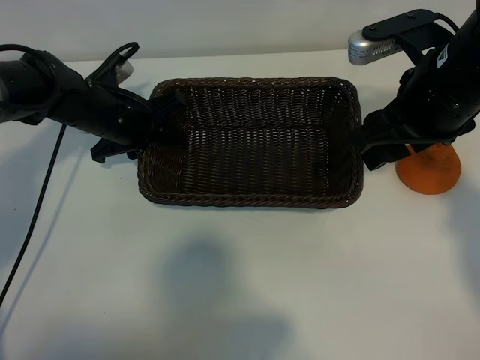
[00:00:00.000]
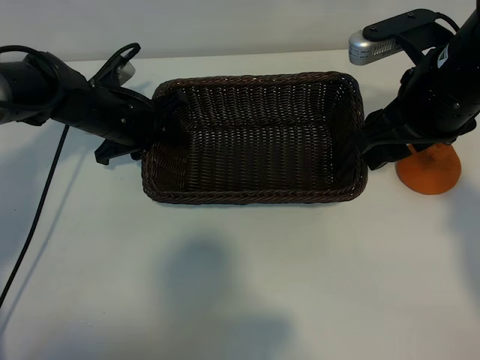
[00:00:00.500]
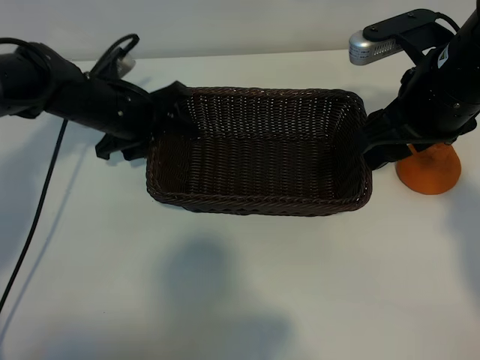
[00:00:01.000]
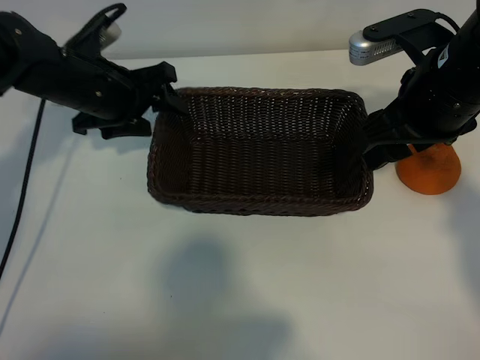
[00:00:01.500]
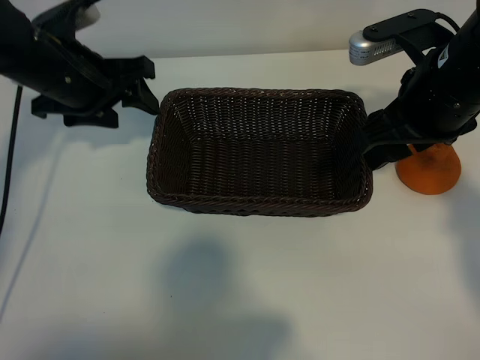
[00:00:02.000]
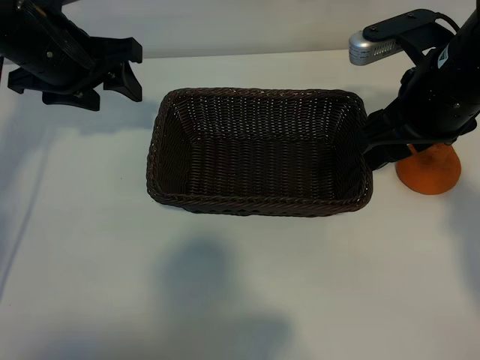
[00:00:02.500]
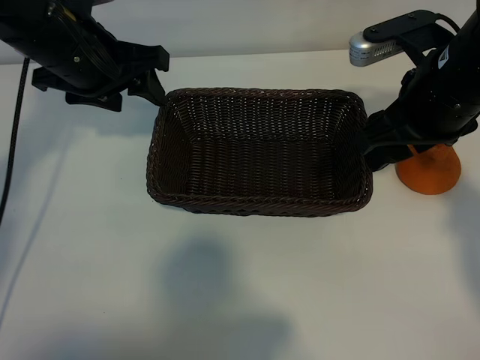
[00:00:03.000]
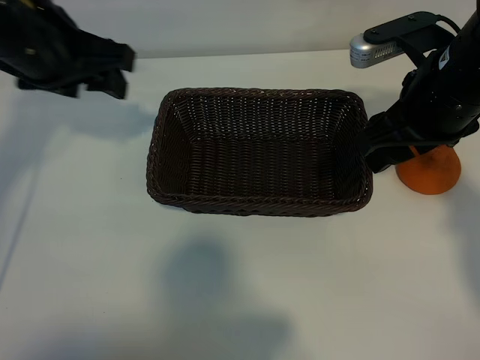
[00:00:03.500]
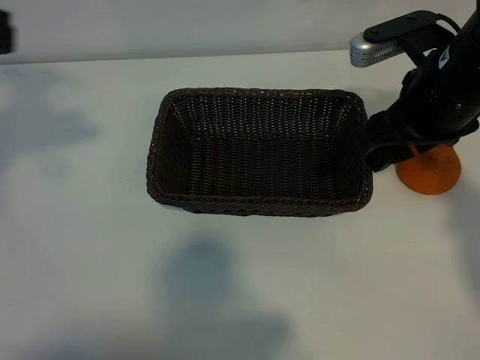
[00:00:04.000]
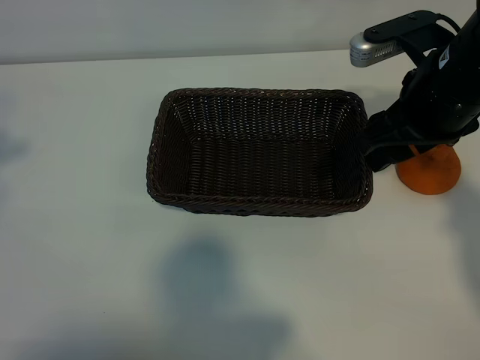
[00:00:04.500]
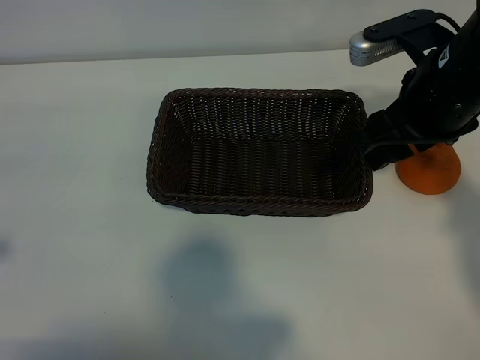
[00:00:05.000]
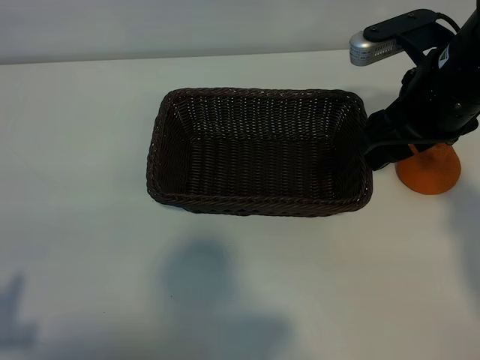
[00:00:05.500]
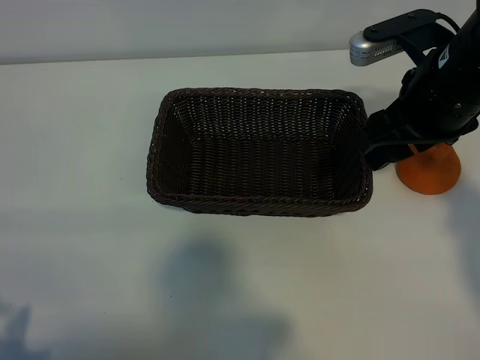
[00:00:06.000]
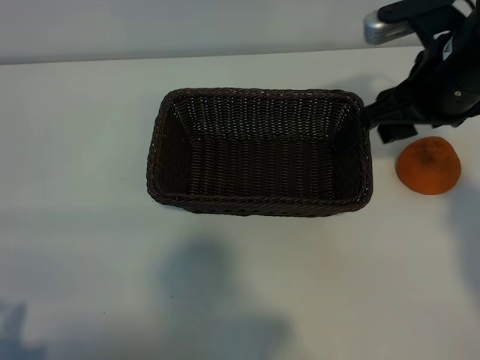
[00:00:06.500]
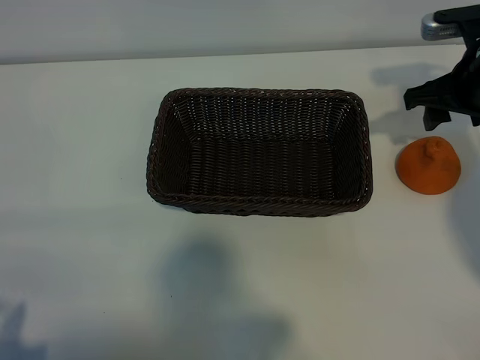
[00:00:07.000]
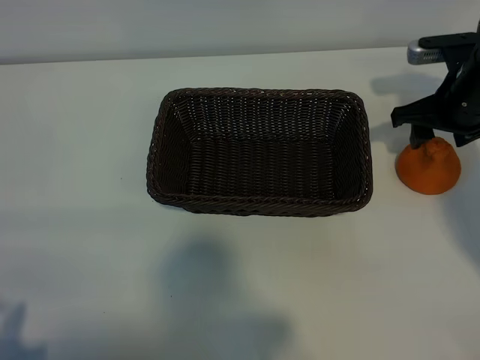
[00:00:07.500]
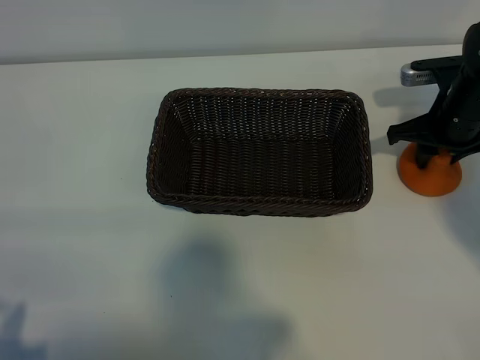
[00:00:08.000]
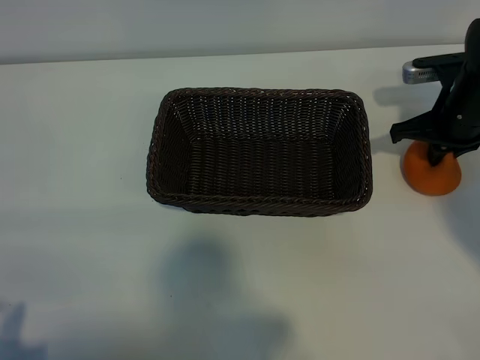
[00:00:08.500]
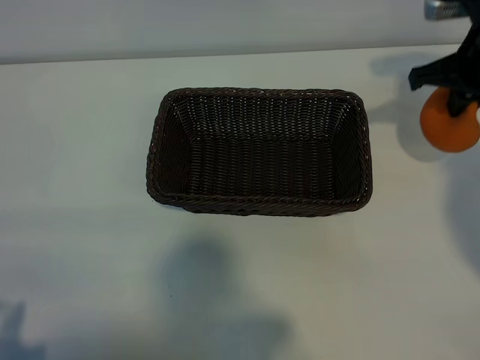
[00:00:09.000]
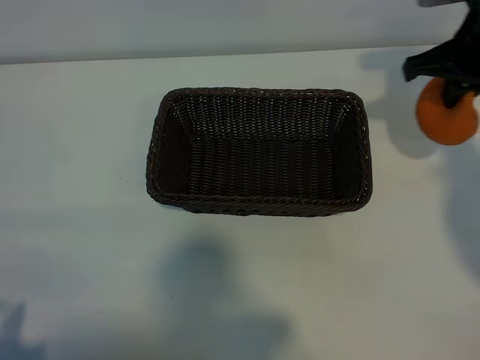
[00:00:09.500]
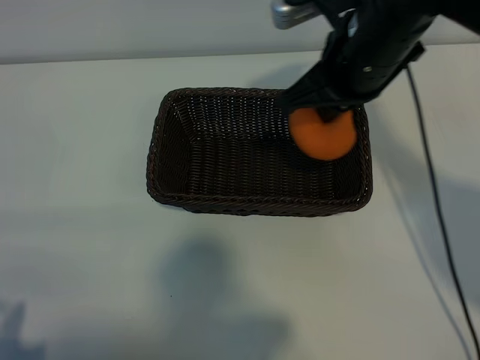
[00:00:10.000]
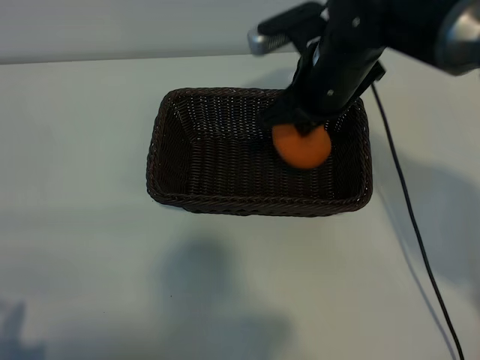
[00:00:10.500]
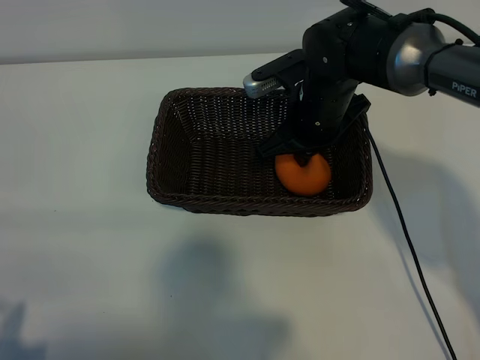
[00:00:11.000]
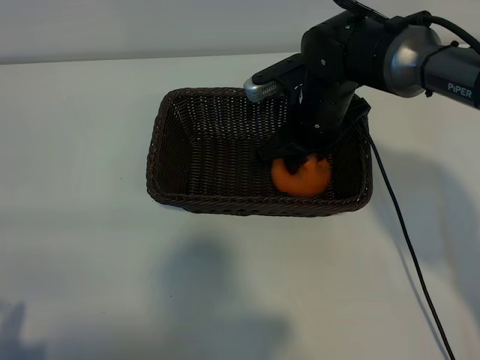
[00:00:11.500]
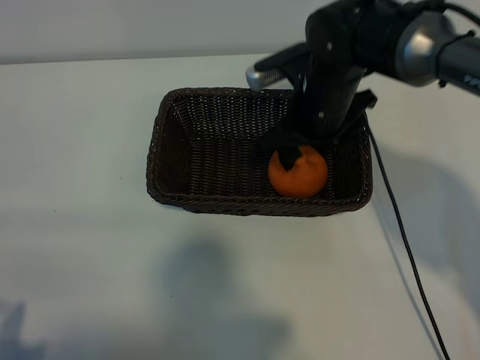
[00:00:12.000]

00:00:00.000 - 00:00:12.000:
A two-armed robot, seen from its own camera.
Task of the whole recording: pick up the orange and put it into the basket.
Step, 00:00:01.000 - 00:00:08.000: Grasp the orange with right gripper.
Step, 00:00:08.500 - 00:00:11.500: Place the orange in the basket with right gripper.
